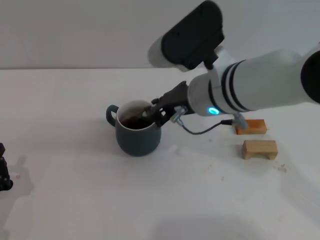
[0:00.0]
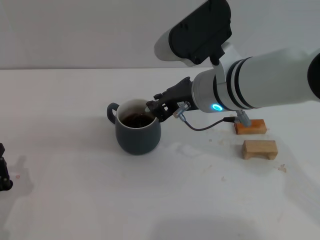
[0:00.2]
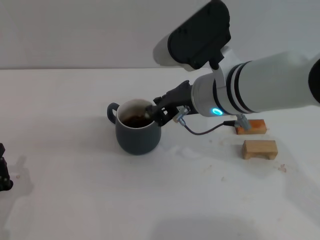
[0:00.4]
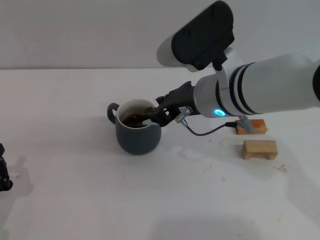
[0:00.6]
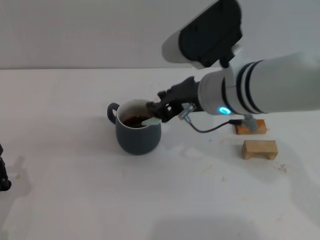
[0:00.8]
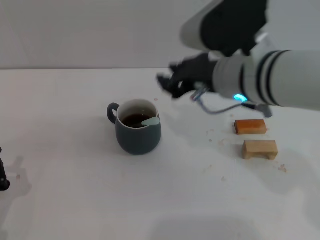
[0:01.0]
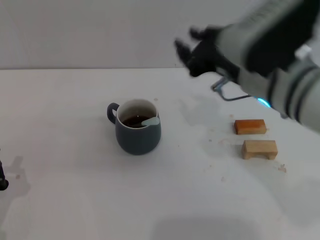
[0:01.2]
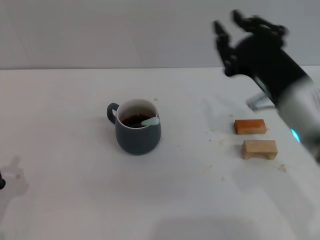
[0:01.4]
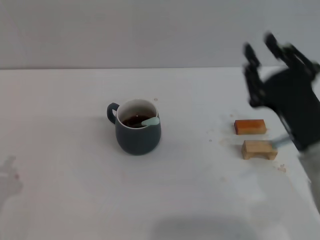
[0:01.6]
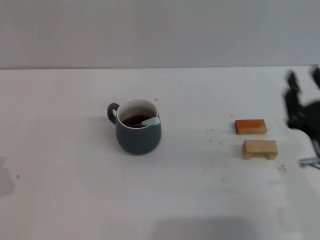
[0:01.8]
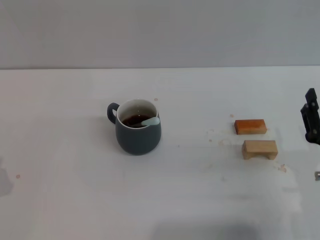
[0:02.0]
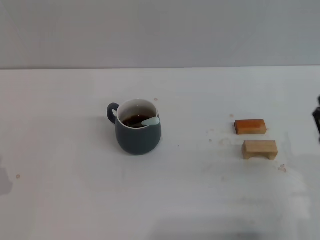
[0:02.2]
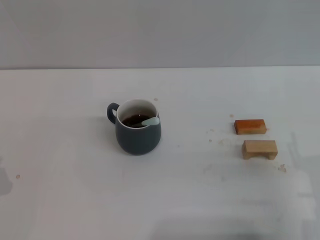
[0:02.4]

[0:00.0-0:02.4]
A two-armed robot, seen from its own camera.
Task of the whole recording: Move the grey cup to the center, lift the blue spoon, stir it three times in the cup, and put the spoon into the cup.
0:00.0 to 0:01.2: The right gripper goes about 5 cm to the right.
0:01.2 to 0:02.4: The right gripper travels downward, to the right and backward by some 25 cm, and opens its fingers.

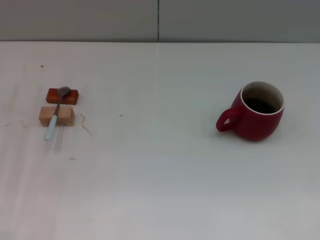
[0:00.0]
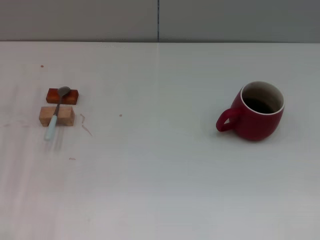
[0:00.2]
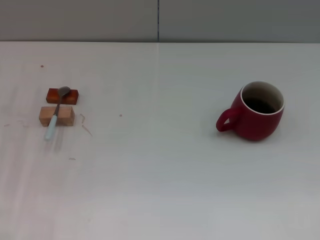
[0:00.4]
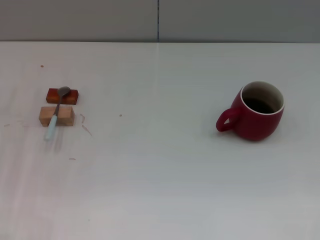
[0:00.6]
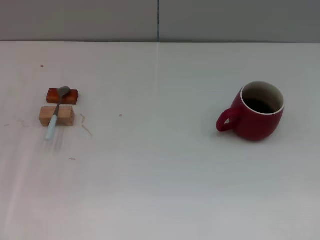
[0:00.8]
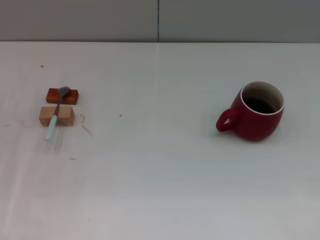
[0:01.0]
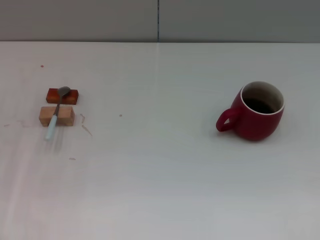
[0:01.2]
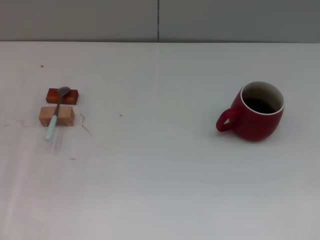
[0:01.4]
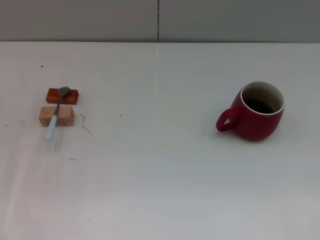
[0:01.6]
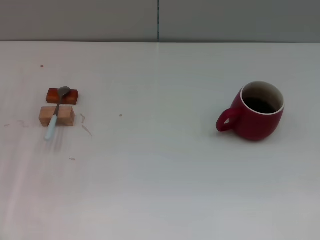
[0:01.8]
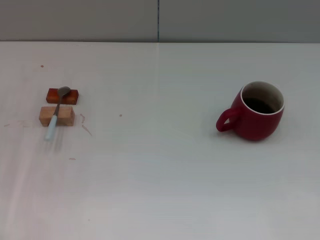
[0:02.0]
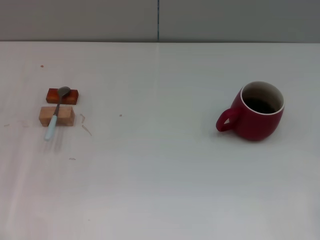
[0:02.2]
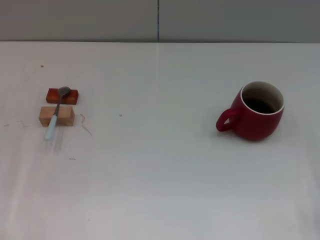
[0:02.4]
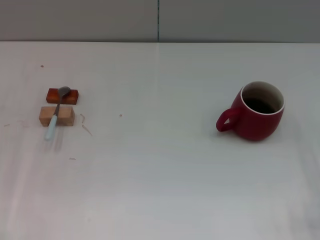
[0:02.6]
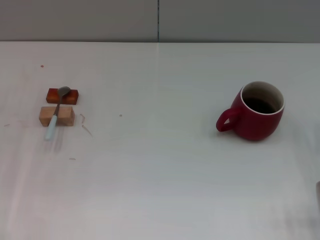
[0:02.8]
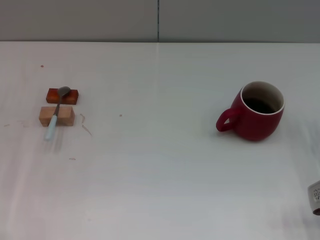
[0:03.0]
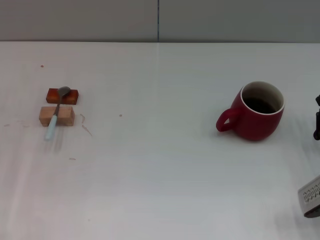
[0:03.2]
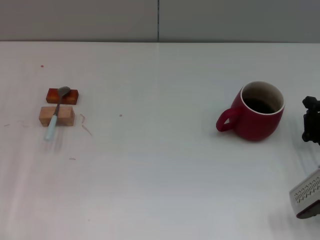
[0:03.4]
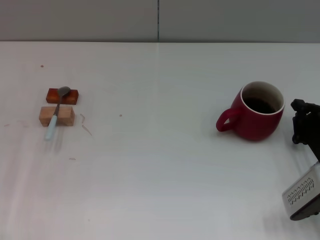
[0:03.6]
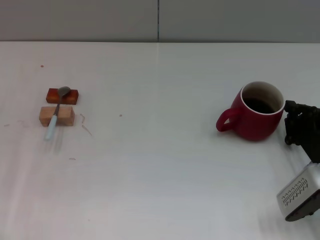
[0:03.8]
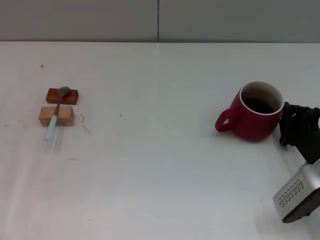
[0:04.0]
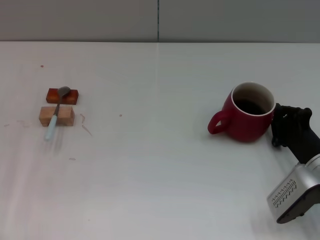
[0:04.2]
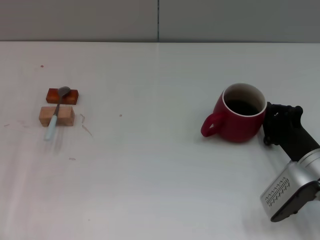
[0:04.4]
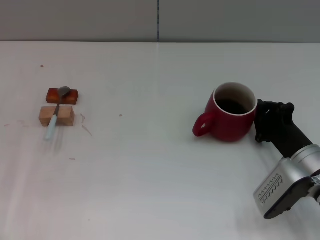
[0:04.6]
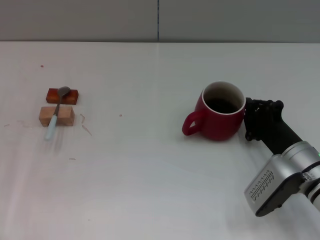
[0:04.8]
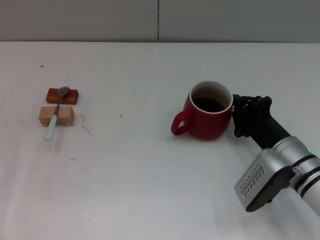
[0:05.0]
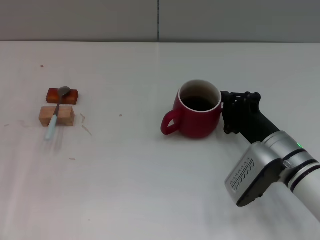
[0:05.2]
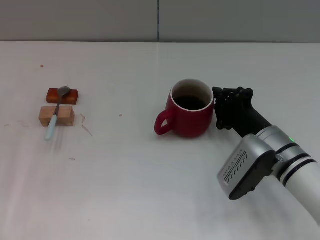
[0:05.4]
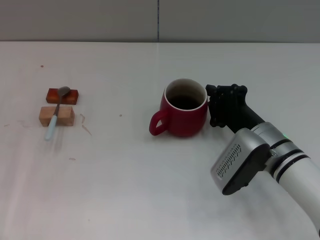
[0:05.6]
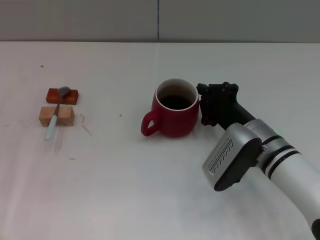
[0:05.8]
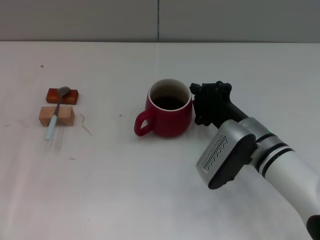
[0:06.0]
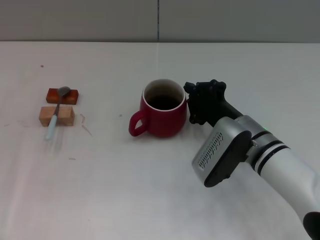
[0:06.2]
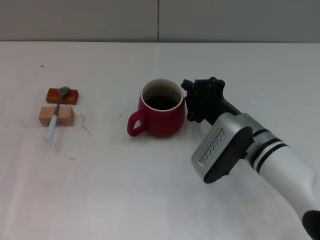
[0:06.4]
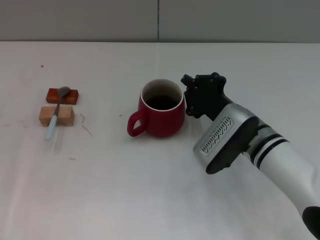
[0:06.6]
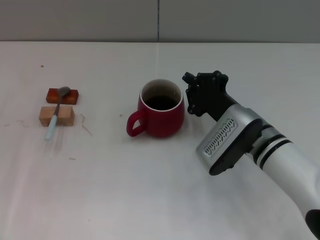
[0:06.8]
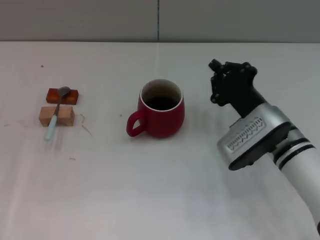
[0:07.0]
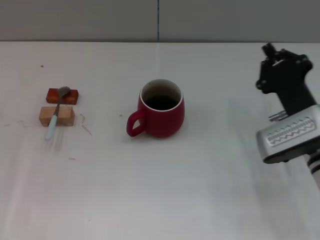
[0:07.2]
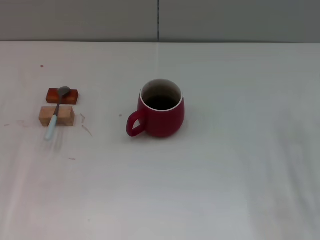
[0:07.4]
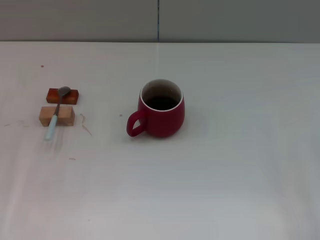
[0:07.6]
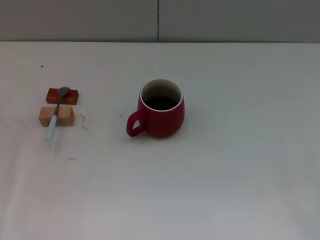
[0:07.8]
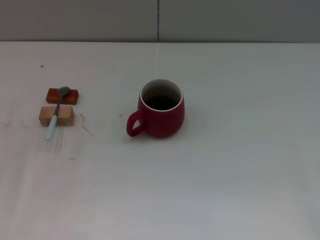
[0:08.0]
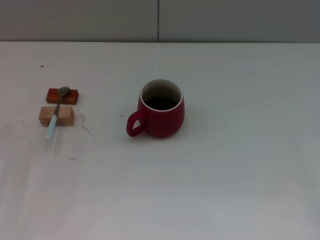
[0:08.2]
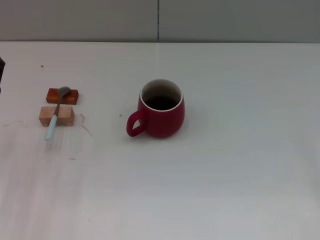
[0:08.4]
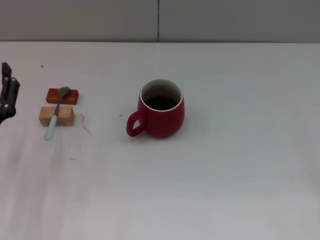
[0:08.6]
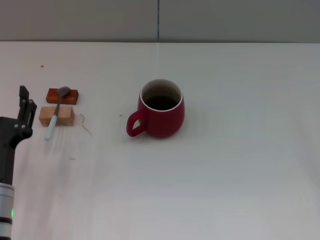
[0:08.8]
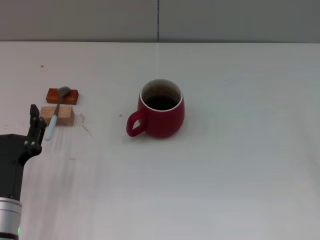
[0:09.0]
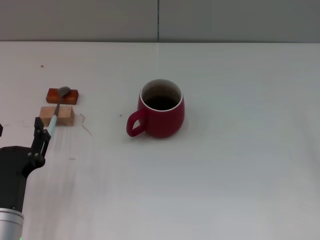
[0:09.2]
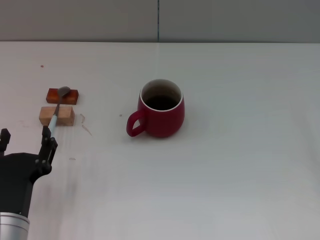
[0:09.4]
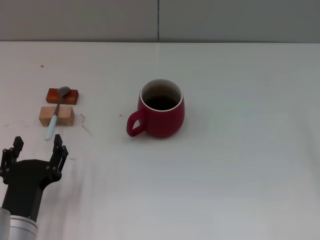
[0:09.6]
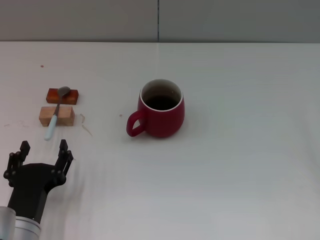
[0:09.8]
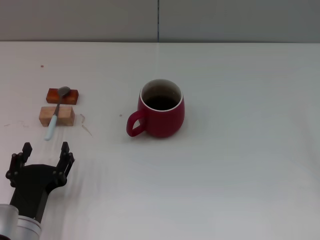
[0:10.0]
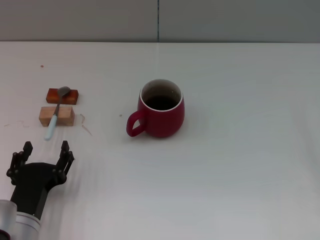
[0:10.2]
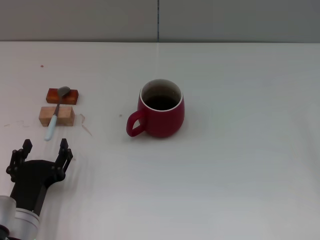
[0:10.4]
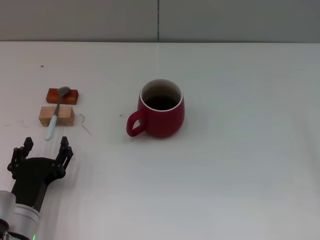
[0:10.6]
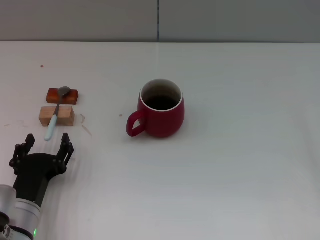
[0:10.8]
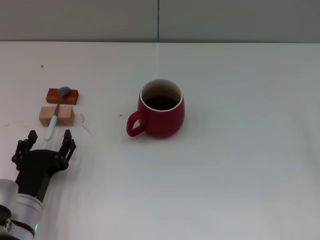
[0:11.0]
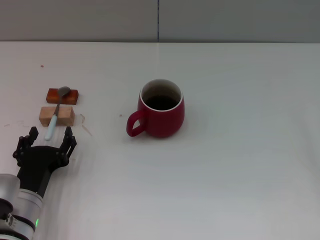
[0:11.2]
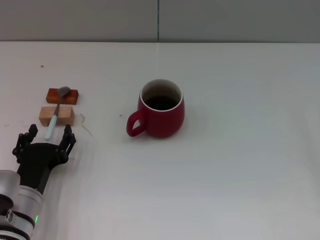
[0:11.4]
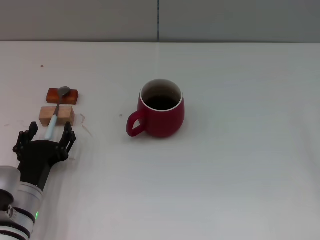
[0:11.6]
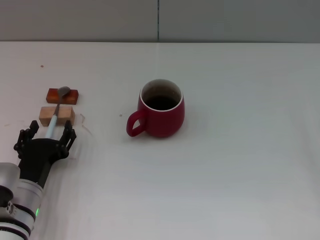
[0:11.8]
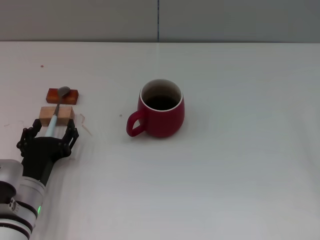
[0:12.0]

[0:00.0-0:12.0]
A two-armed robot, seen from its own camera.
Task of the whole recording: Move the red cup to the center, lift the blue spoon, stir it three times in the cup, and put the spoon into the cup.
Step, 0:00.0 to 0:07.0: Move the cup with coffee to the center of view with the right gripper.
0:01.6 to 0:03.0: The right gripper is displaced to the left by approximately 5 cm, and closes up.
0:03.0 to 0:04.4: The right gripper travels to the left by some 5 cm.
0:04.4 to 0:06.0: The right gripper heads to the left, covering about 10 cm.
0:06.0 to 0:07.6: The right gripper moves to the right and backward, some 20 cm.
0:07.6 to 0:09.0: The left gripper is displaced backward and to the right by some 15 cm.
0:09.0 to 0:10.4: There are only small adjustments of the grippers.
0:10.4 to 0:12.0: The left gripper shifts about 5 cm forward.

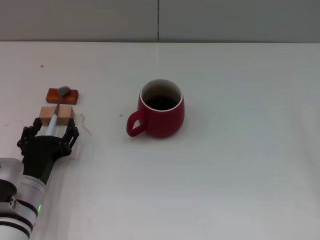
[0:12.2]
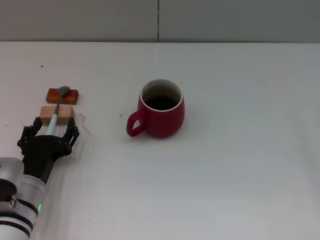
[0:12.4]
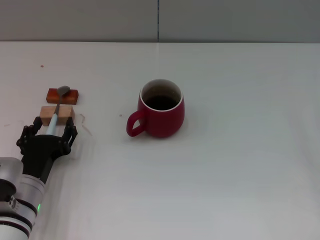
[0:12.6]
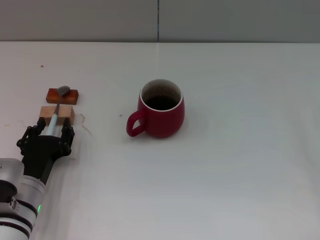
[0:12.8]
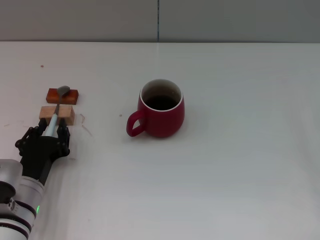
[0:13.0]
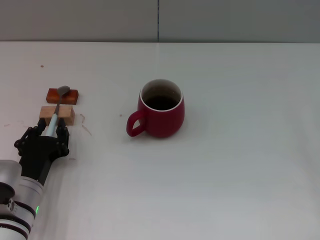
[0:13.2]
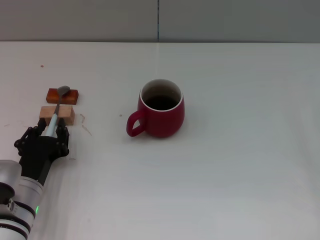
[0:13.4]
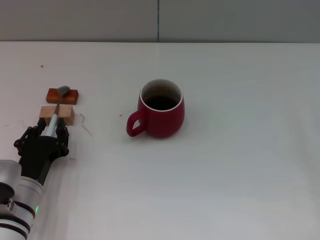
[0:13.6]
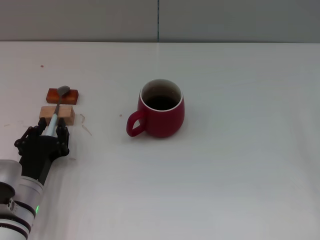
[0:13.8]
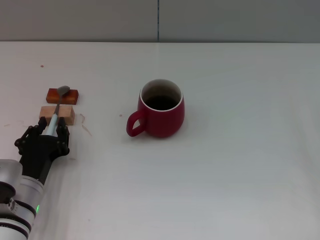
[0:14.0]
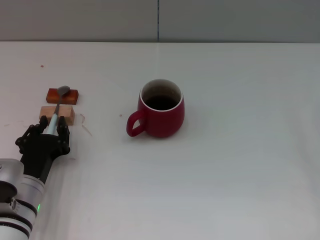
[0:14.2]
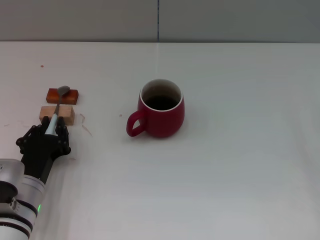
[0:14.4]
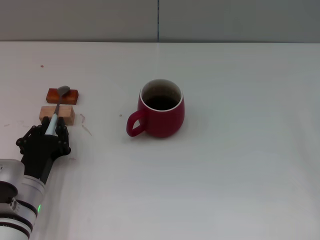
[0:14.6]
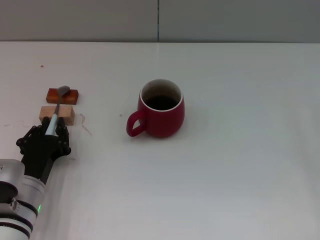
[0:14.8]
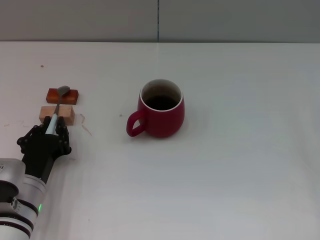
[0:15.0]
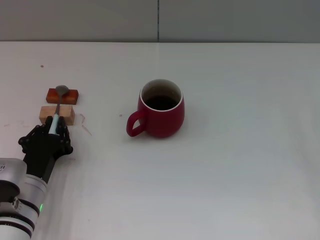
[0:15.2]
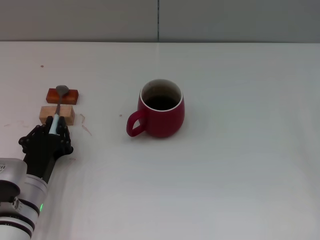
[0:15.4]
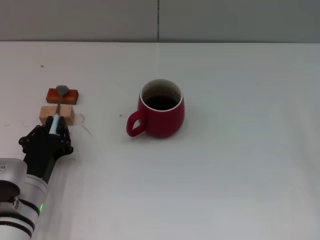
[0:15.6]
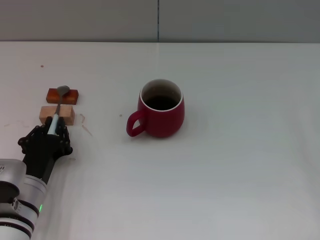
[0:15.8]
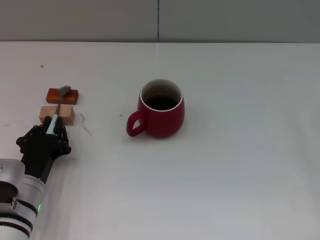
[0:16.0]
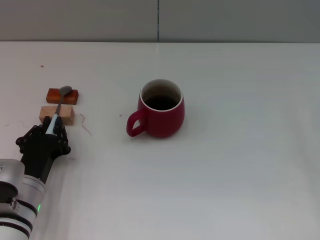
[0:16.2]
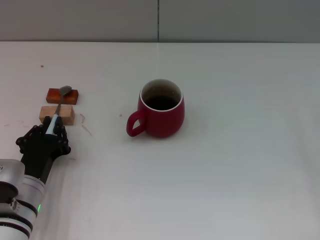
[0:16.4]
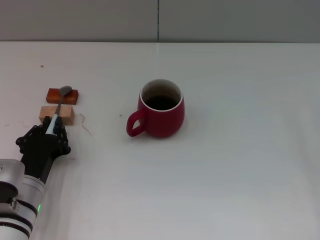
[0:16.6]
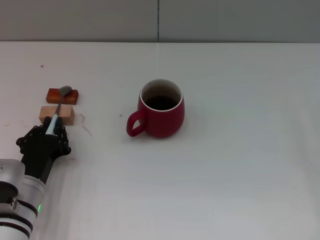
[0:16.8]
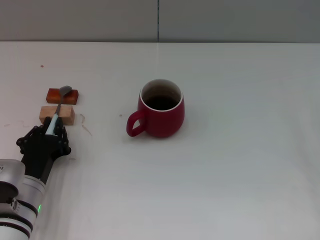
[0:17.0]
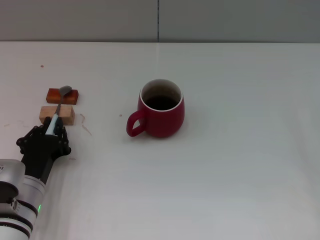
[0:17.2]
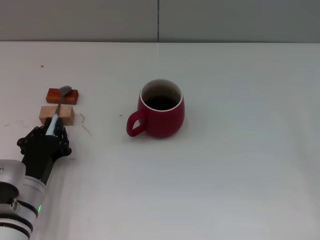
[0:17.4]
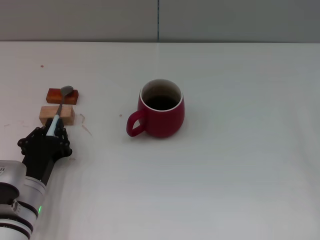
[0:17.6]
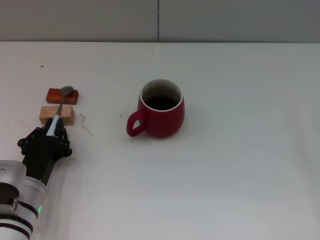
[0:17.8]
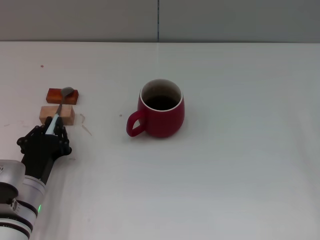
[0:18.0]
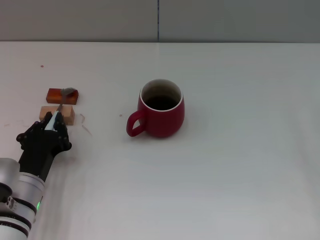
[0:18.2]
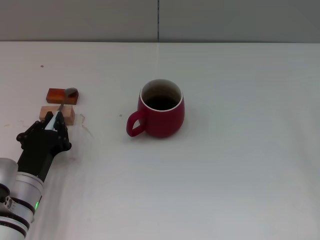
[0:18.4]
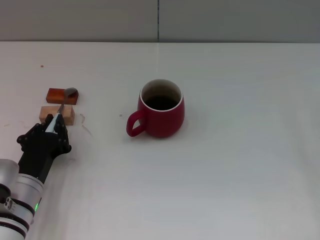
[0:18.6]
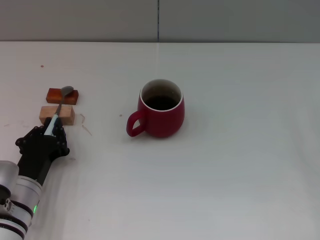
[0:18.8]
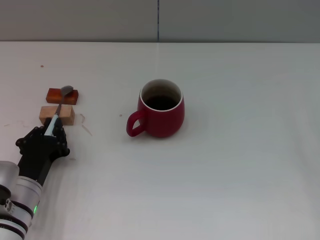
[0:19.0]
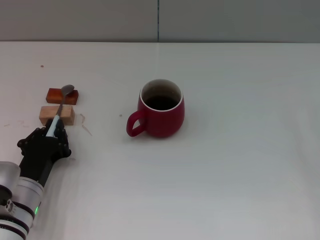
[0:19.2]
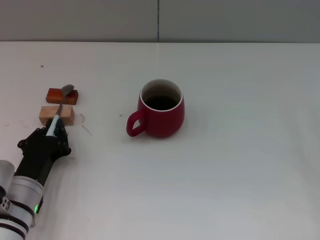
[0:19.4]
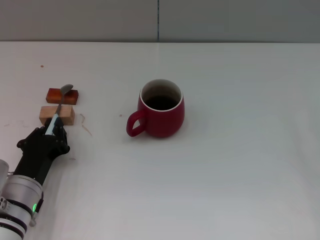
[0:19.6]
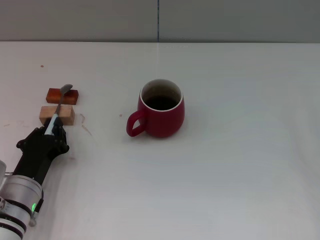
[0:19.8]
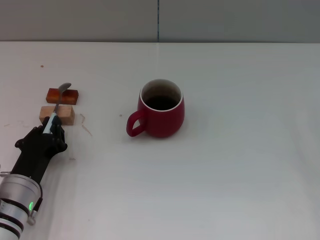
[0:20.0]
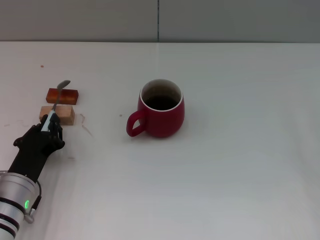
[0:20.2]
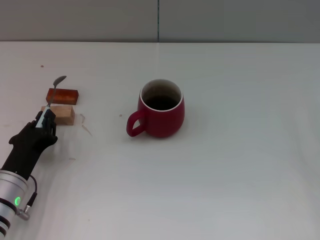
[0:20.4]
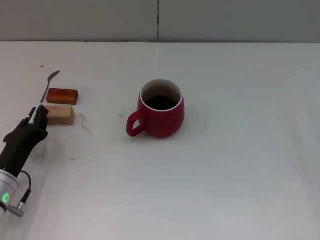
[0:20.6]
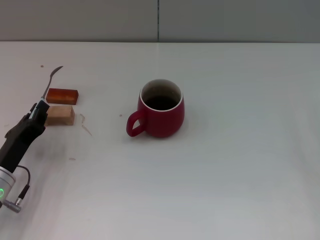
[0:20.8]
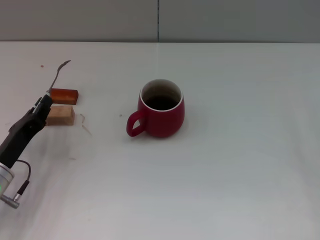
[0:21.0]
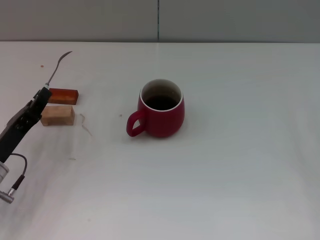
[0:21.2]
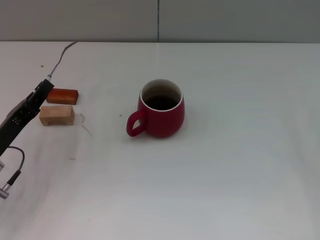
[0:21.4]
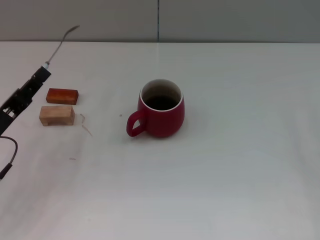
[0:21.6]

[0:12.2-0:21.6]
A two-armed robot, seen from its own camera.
Task of the whole recording: Move the red cup to the center, lift the blue spoon, stir it three times in the cup, and put the spoon into the cup.
0:12.2 to 0:13.8: The left gripper closes its fingers.
0:13.8 to 0:18.4: Neither gripper changes place.
0:18.4 to 0:20.0: There are only small adjustments of the grippers.
0:20.0 to 0:21.6: The left gripper heads to the left and upward, covering roughly 10 cm.
